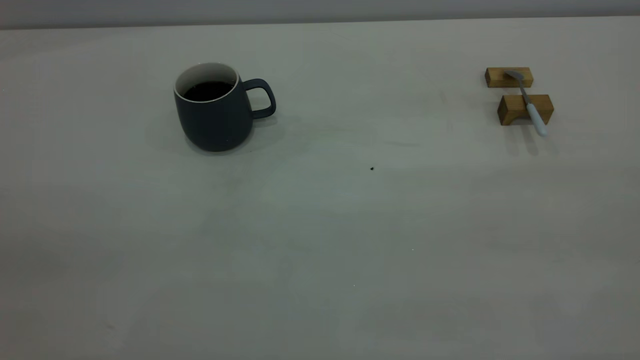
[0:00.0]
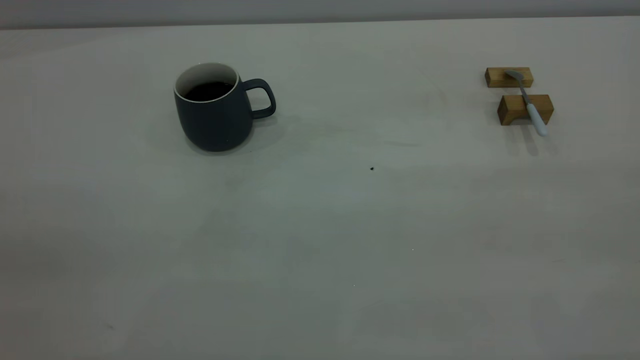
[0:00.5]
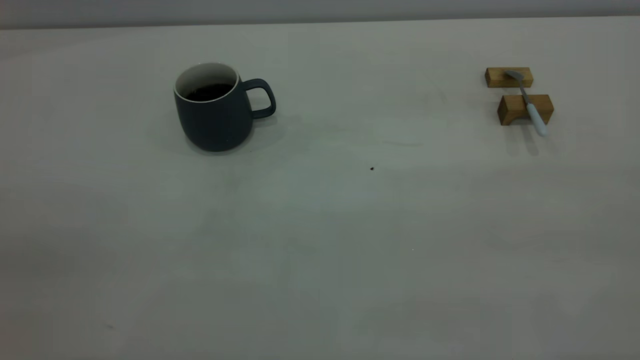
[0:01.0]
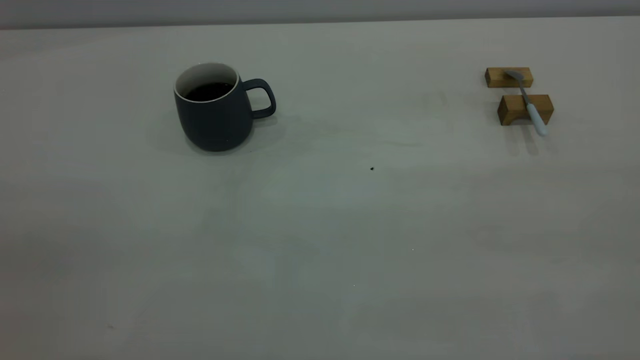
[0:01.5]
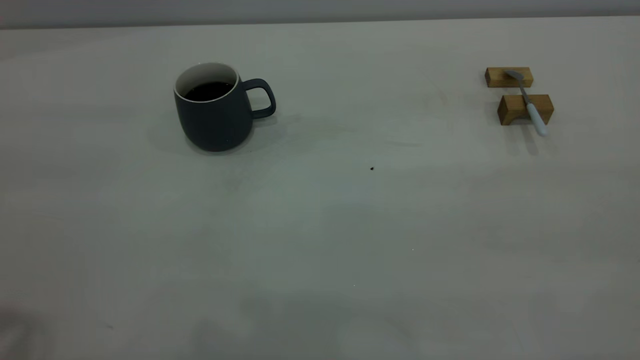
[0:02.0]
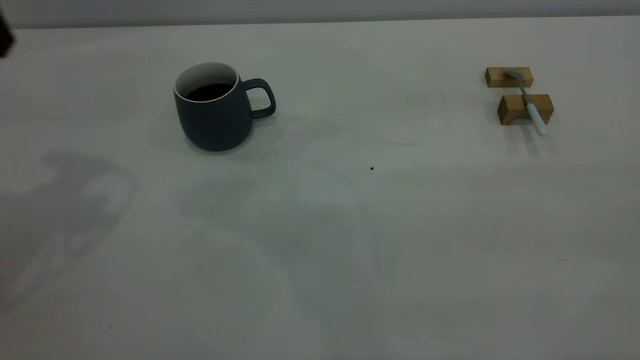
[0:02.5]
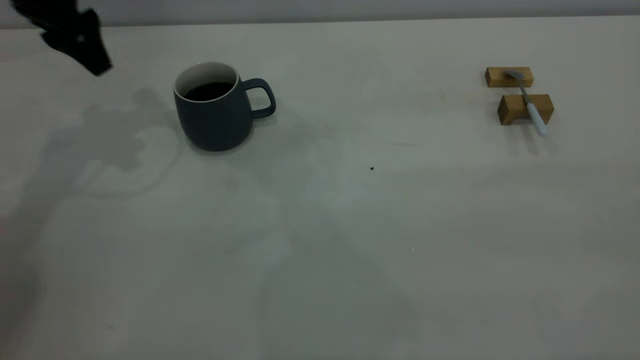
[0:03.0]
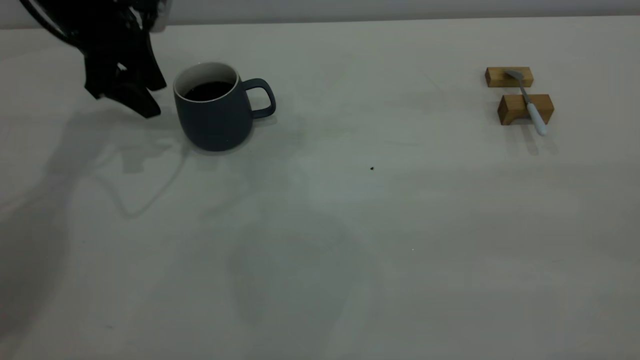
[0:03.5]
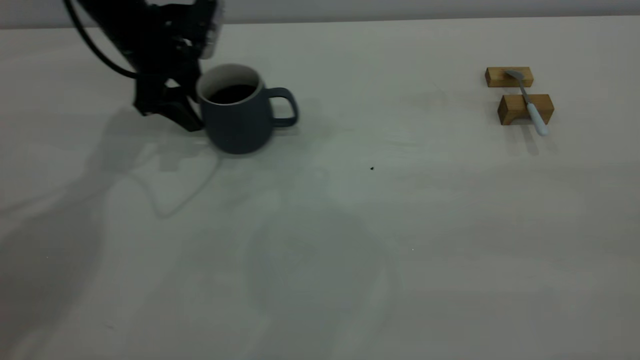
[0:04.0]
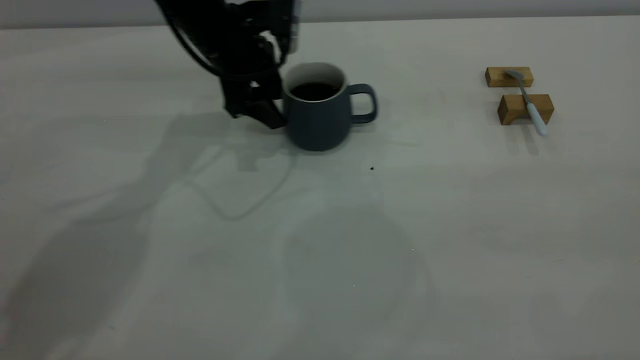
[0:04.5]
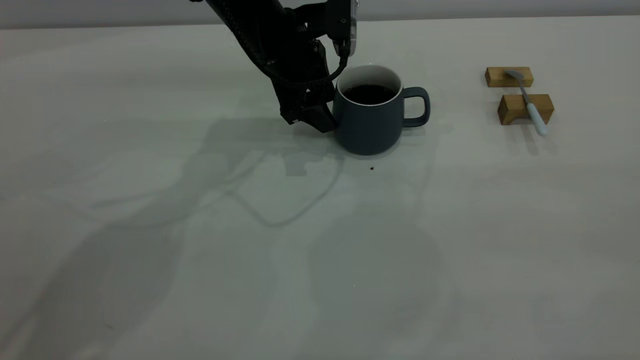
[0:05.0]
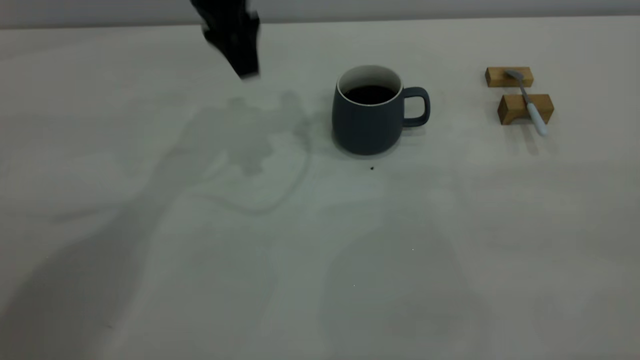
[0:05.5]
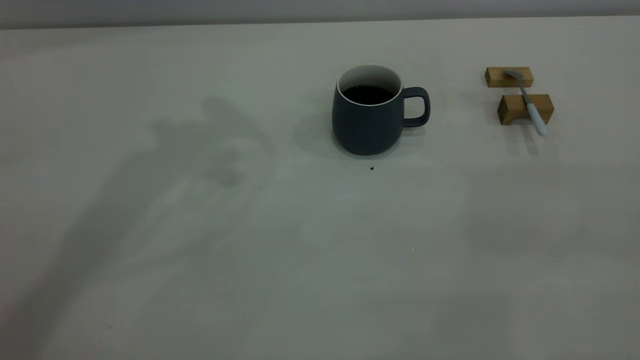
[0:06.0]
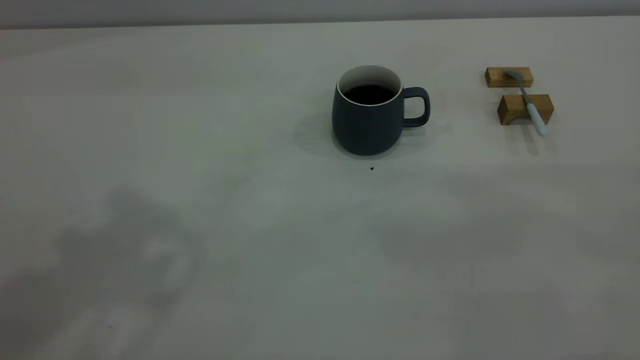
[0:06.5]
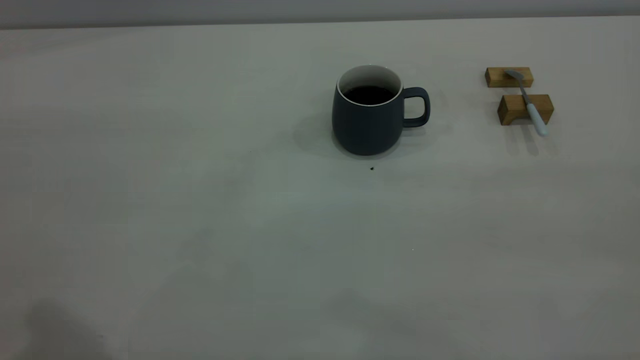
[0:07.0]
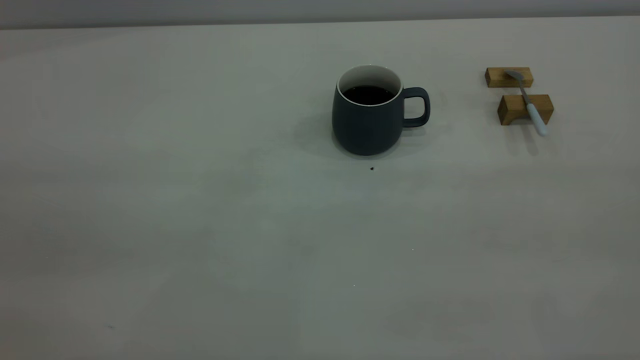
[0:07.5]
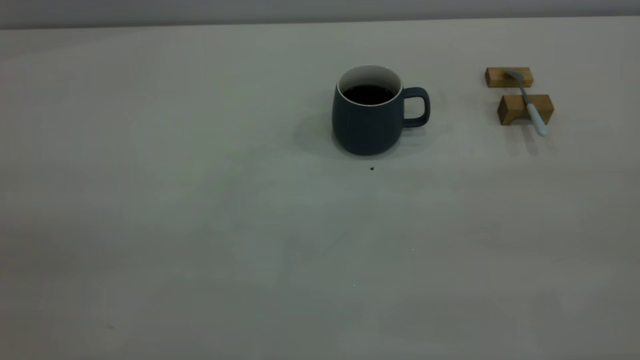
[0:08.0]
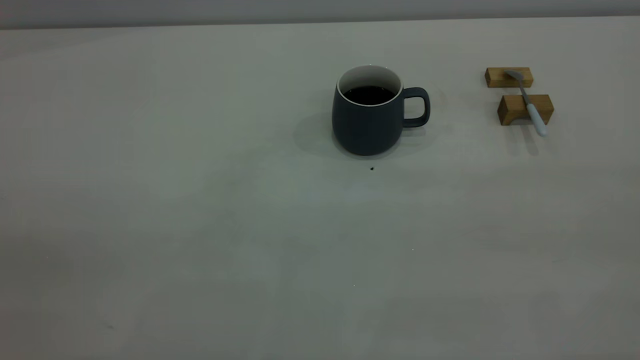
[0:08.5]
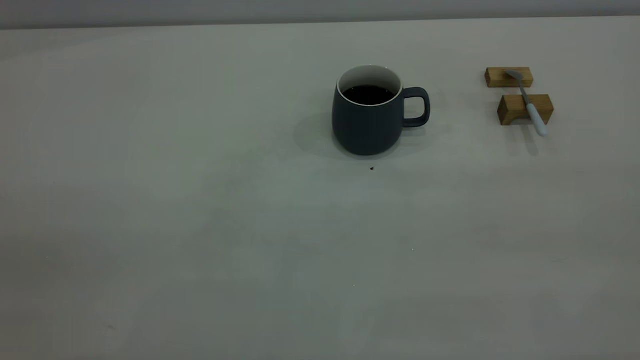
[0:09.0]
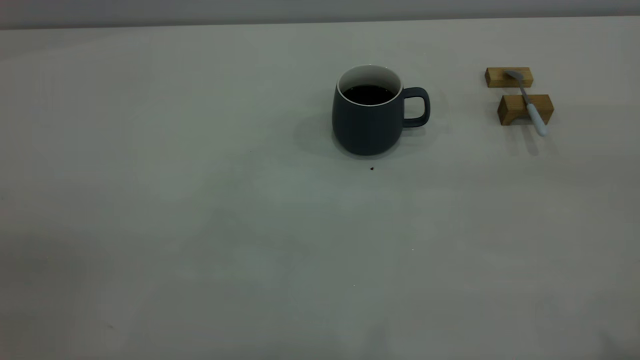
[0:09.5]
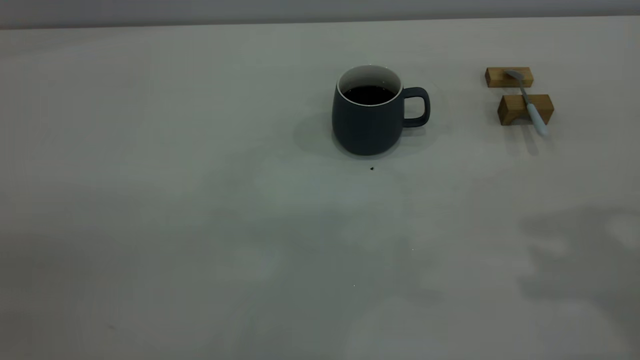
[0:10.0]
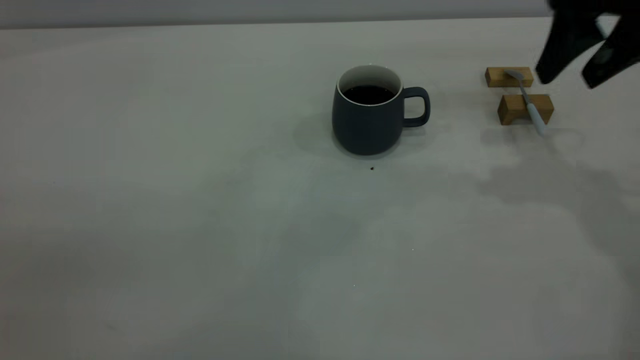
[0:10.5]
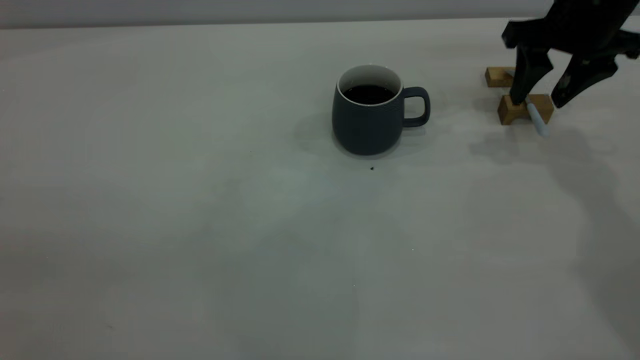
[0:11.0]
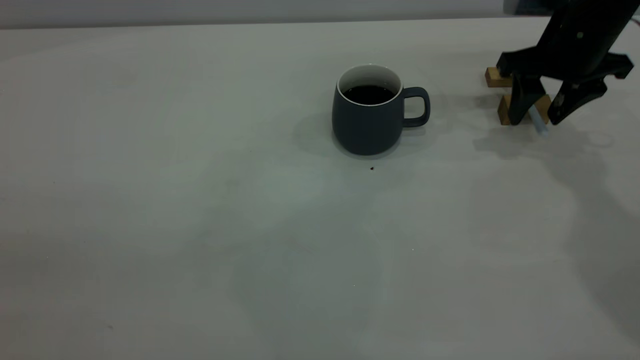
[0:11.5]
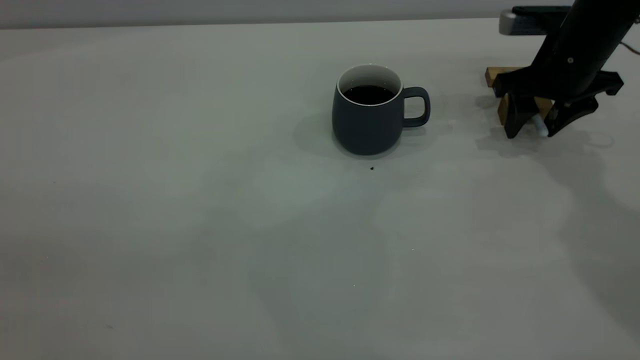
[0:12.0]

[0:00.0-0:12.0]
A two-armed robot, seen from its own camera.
Step, 0:00.0 to 0:05.0: Move the cup with coffee to the center of view.
0:02.0 to 0:04.0: The left gripper goes approximately 40 cm forward and downward.
0:04.0 to 0:06.0: The left gripper moves upward, roughly 35 cm.
0:10.0 to 0:12.0: The right gripper shifts about 30 cm downward and forward.

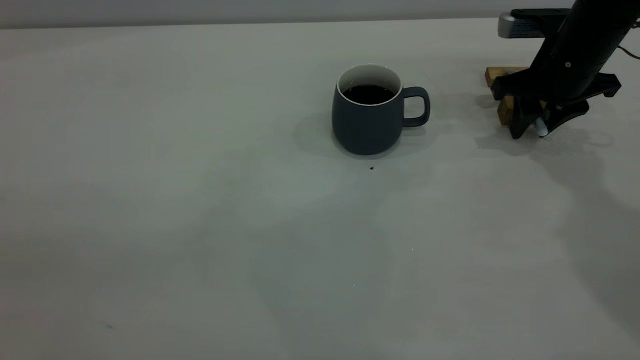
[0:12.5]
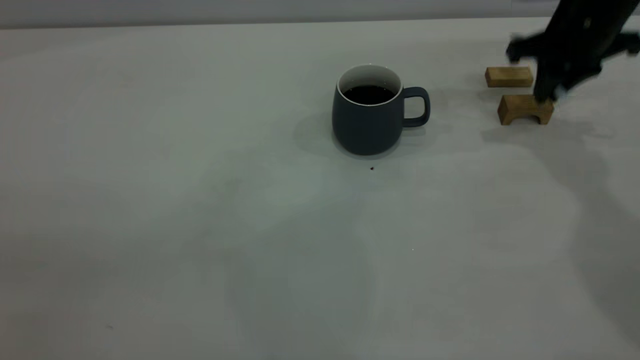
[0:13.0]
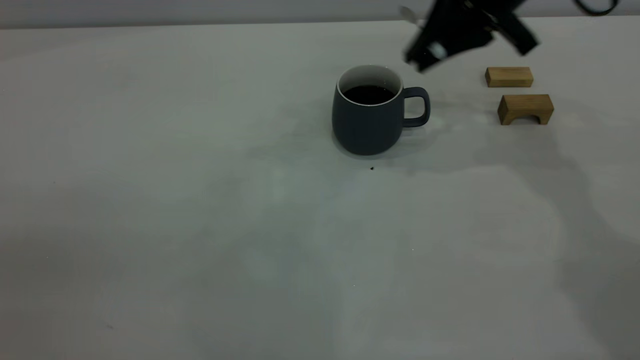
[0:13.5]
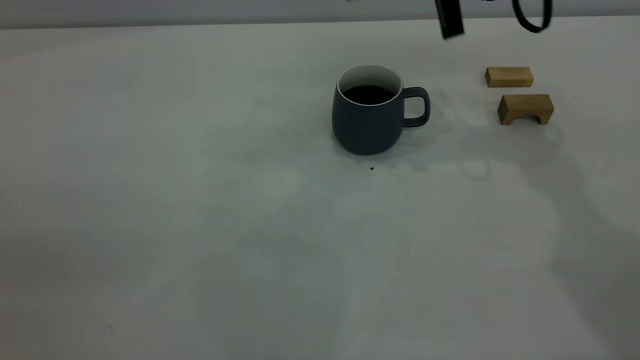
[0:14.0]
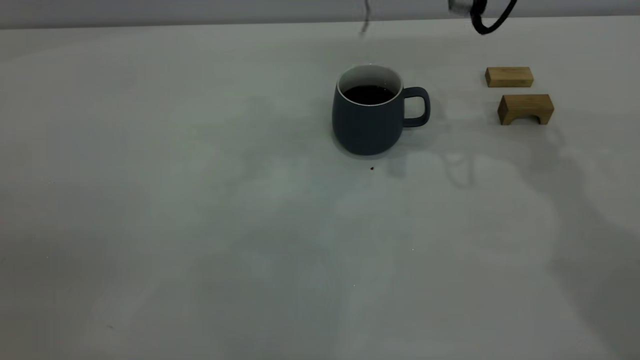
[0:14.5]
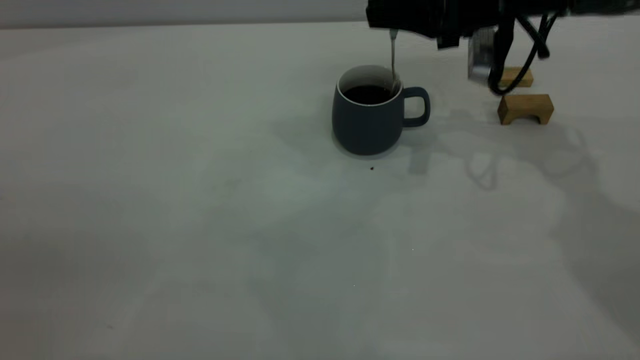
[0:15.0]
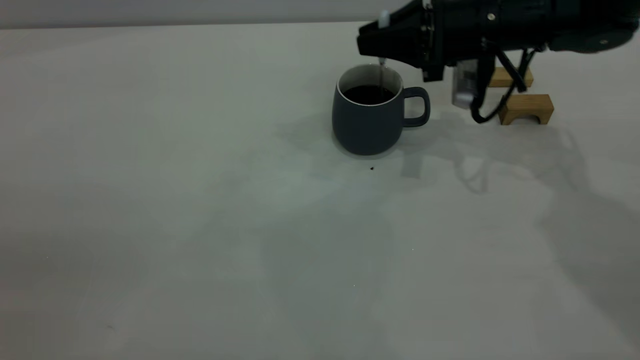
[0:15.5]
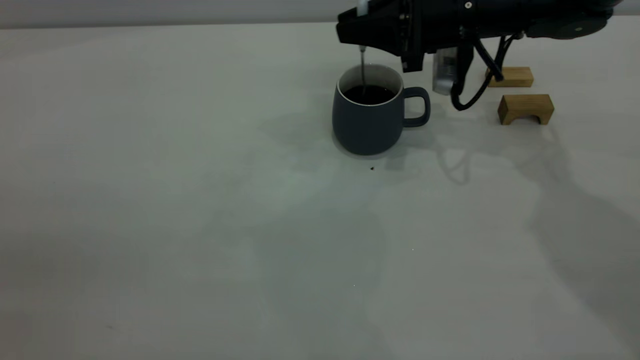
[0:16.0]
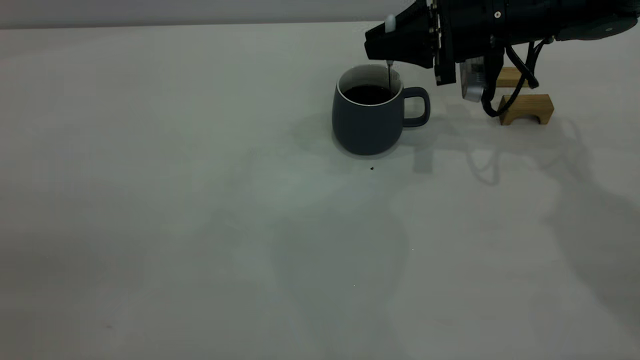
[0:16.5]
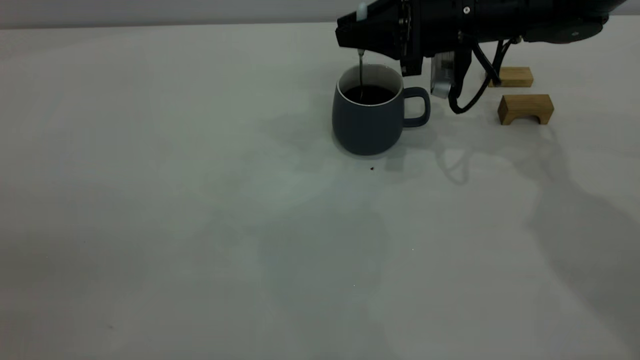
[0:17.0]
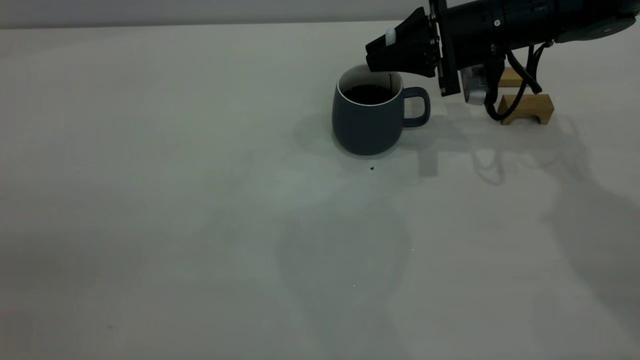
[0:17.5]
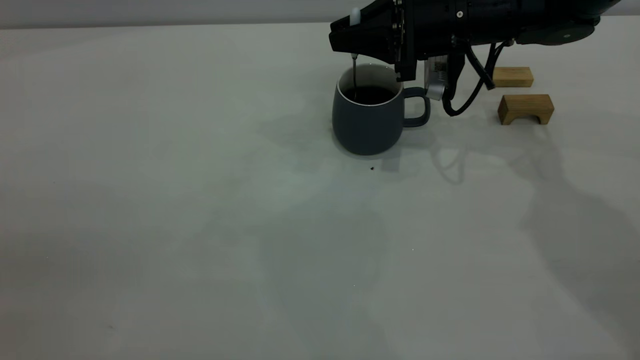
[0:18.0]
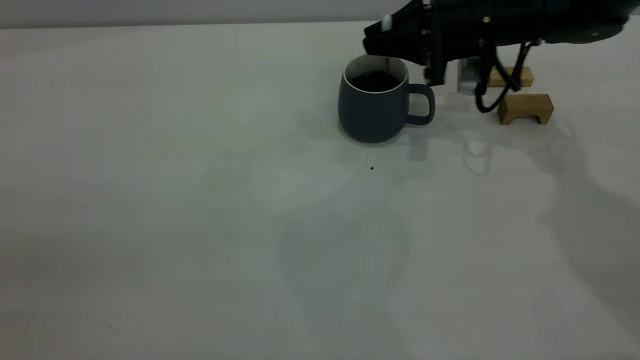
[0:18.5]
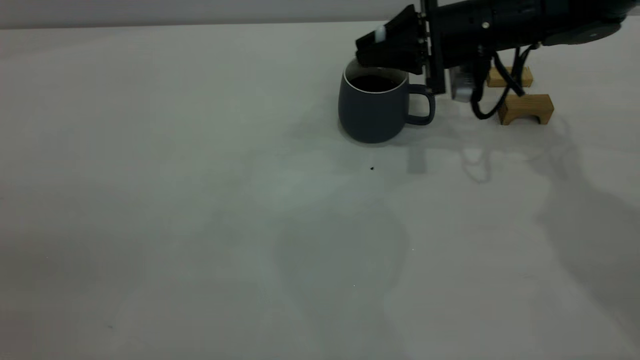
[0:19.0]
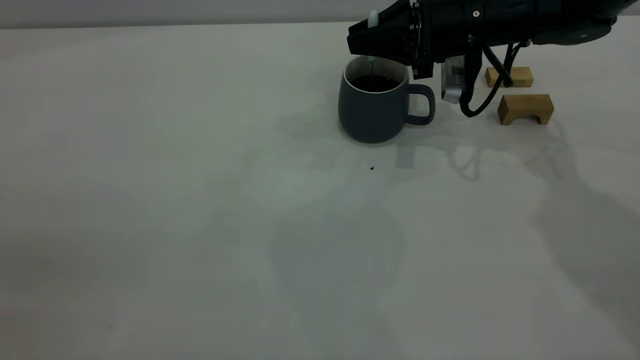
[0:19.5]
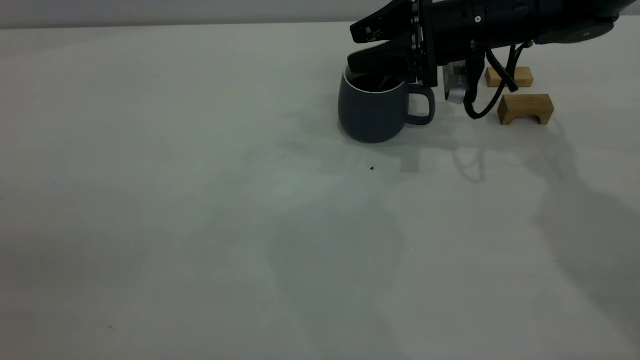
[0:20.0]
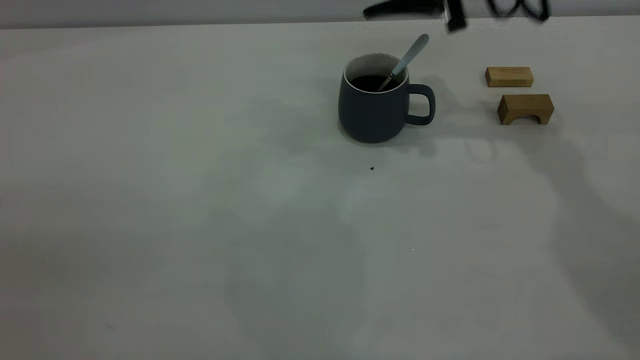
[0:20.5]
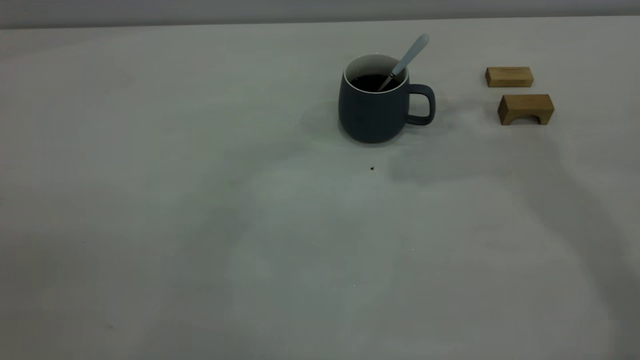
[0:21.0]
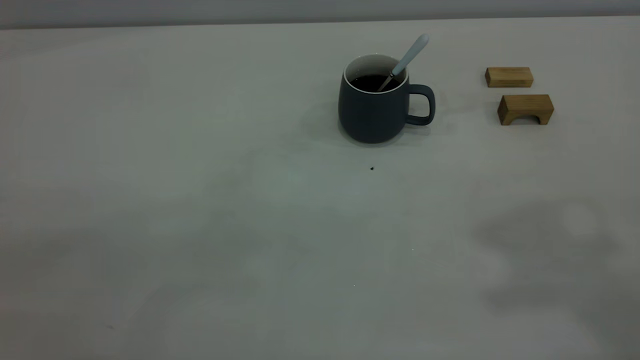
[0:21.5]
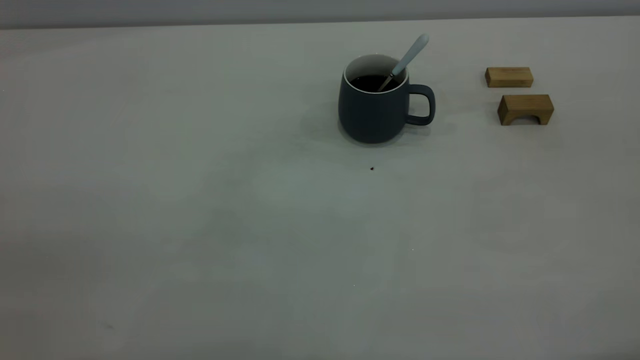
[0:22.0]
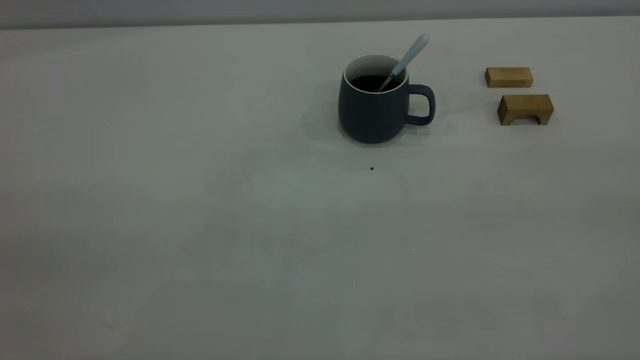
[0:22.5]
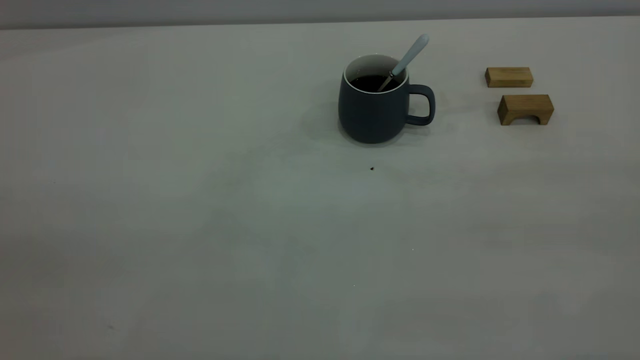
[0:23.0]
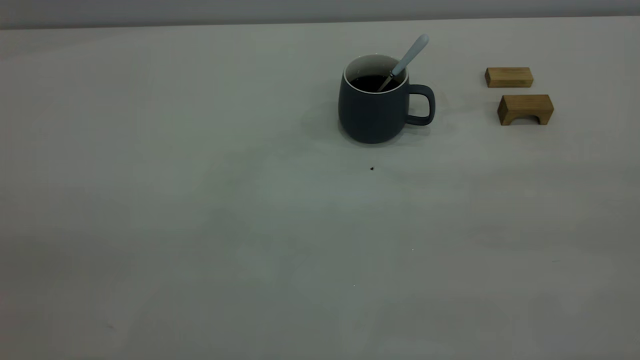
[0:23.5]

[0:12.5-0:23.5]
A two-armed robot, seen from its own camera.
Step, 0:13.5 to 0:20.0: Stir the coffee in the cup.
0:12.5 to 0:14.5: The right gripper is displaced upward and to the left by about 15 cm, and closes.
0:14.5 to 0:16.0: The right gripper moves downward, roughly 10 cm.
0:16.0 to 0:18.0: There are only small adjustments of the grippers.
0:18.0 to 0:20.0: The right gripper opens up.
0:20.0 to 0:21.5: The right gripper shifts about 50 cm upward and backward, and closes its fingers.
